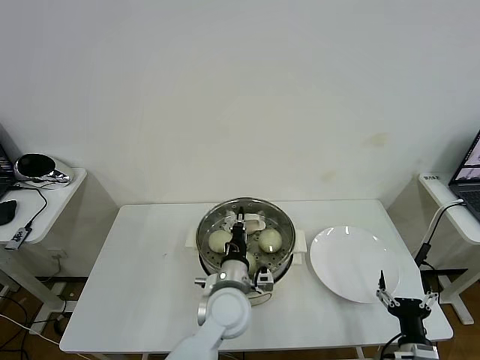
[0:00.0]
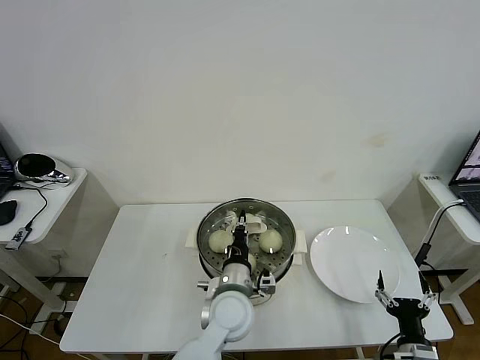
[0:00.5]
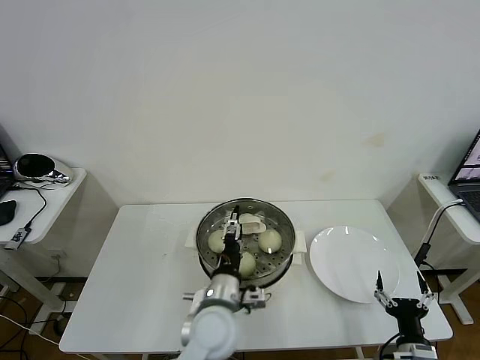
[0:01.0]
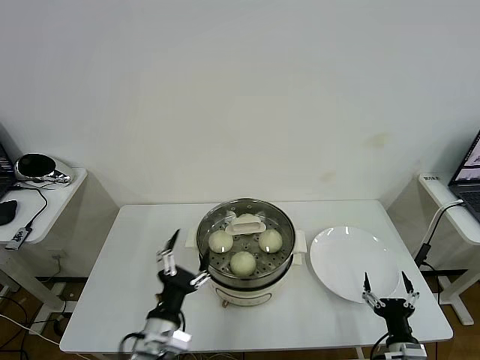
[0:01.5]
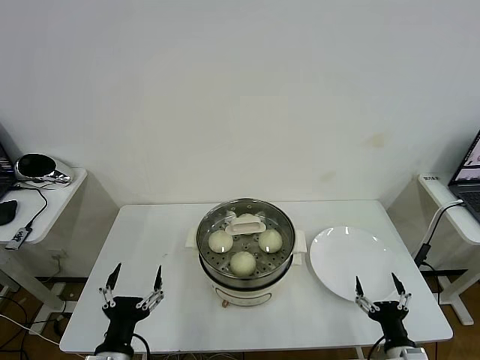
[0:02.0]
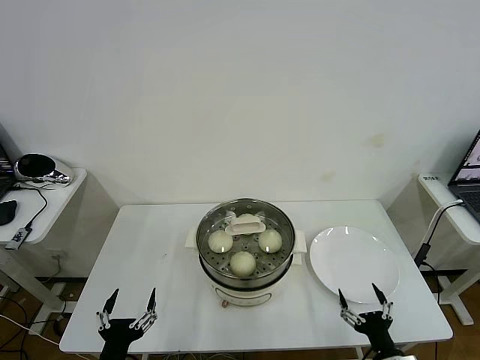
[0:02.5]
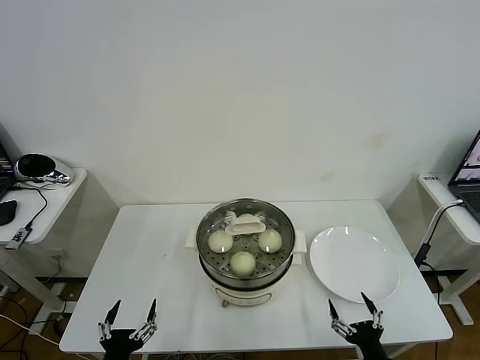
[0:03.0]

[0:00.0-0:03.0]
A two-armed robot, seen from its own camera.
Task of the whole recording: take steamed baozi put them in steamer then cover it.
0:00.0 to 0:01.5: The left gripper shifts some 20 cm to the left and backward, and opens.
0:01.5 to 0:03.0: The left gripper is displaced to the left, backward and downward by roughly 15 cm. Meanwhile the right gripper changes place by roughly 5 cm.
